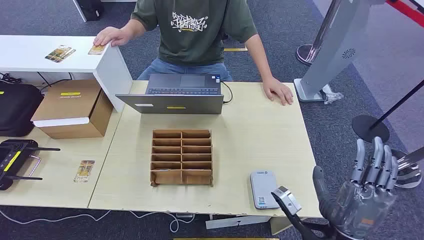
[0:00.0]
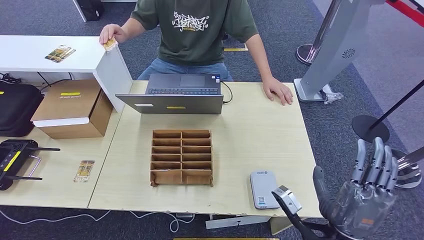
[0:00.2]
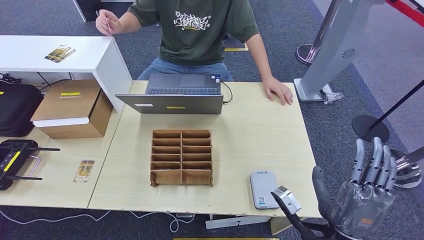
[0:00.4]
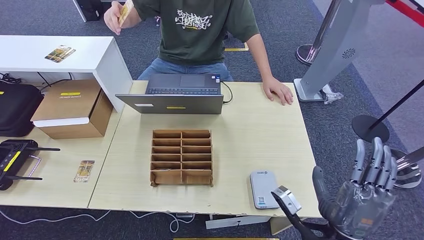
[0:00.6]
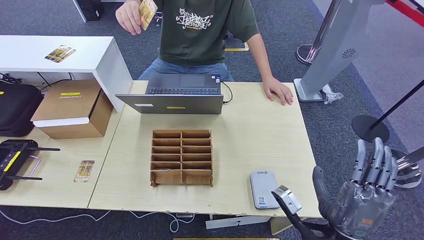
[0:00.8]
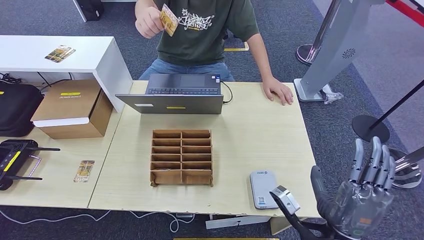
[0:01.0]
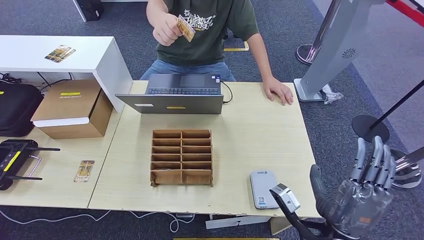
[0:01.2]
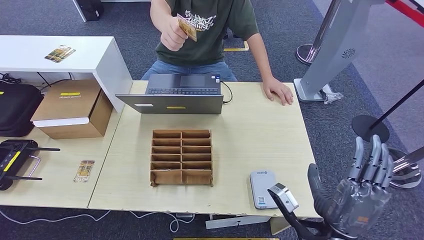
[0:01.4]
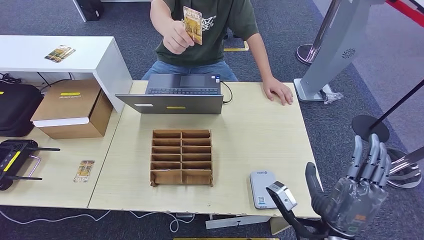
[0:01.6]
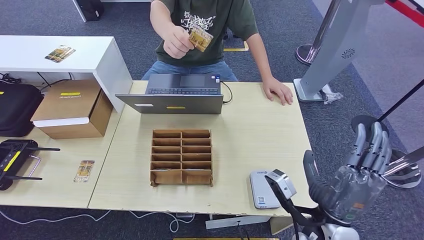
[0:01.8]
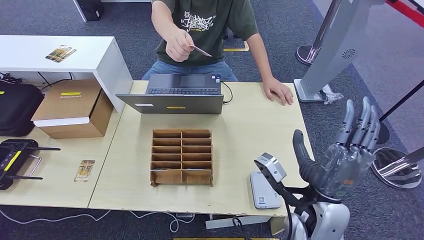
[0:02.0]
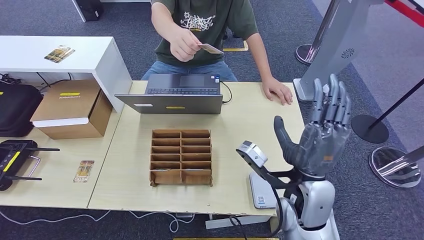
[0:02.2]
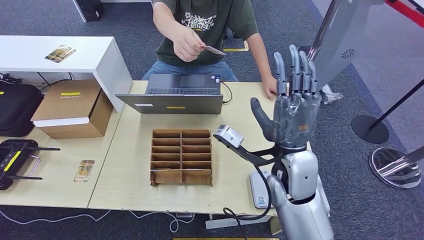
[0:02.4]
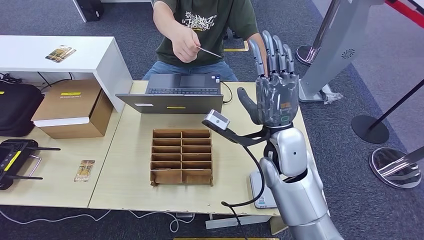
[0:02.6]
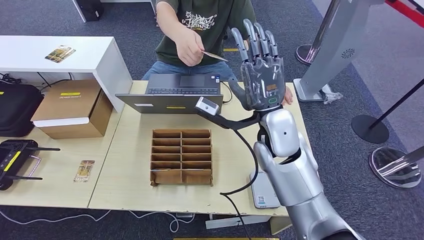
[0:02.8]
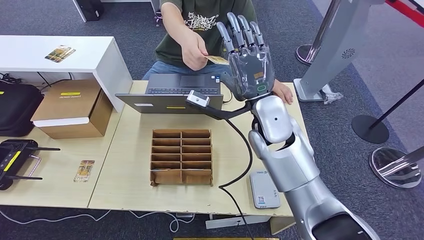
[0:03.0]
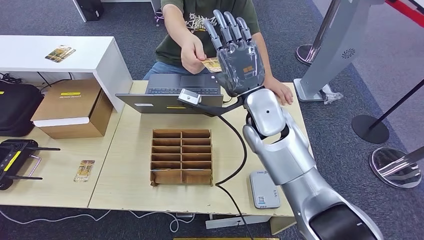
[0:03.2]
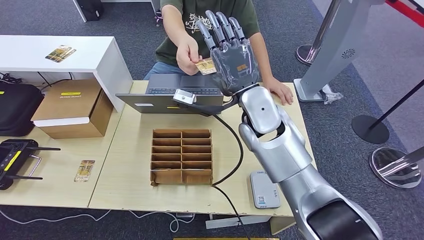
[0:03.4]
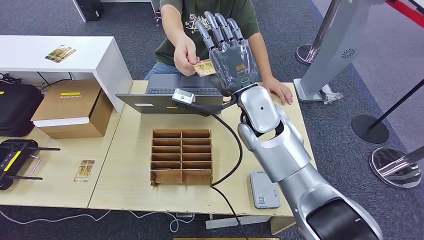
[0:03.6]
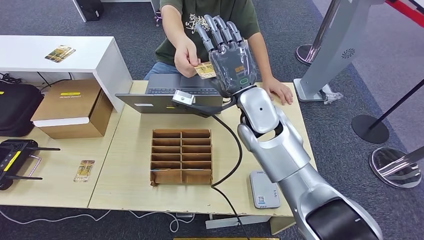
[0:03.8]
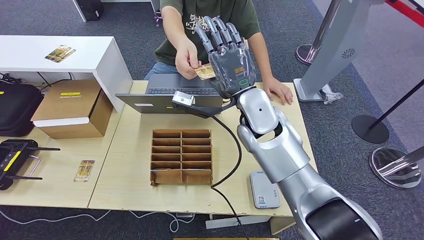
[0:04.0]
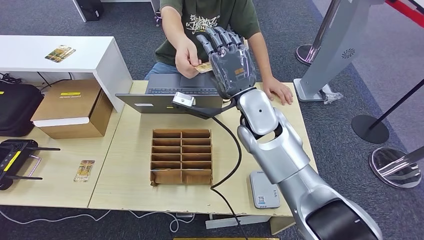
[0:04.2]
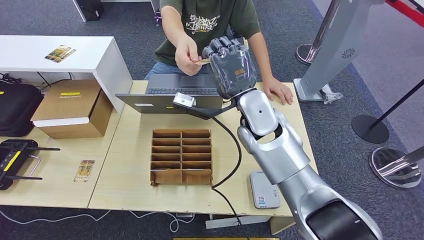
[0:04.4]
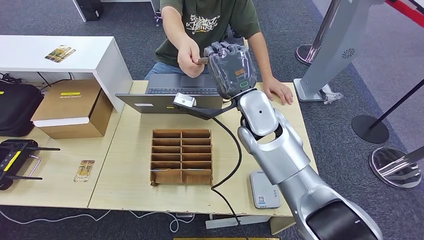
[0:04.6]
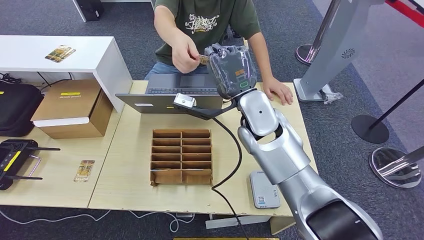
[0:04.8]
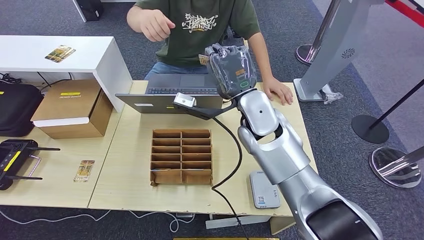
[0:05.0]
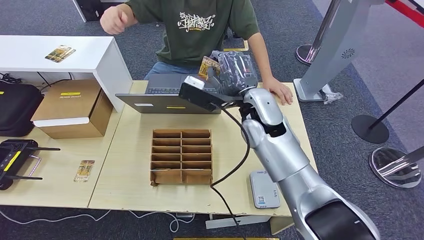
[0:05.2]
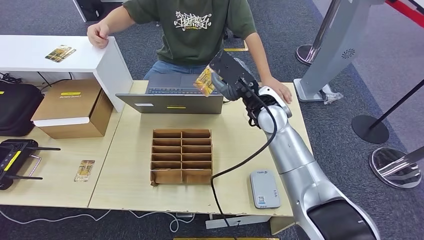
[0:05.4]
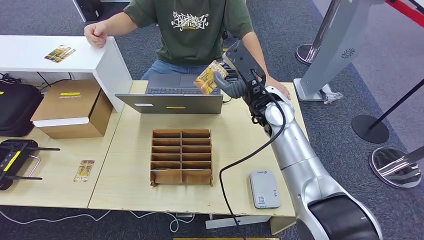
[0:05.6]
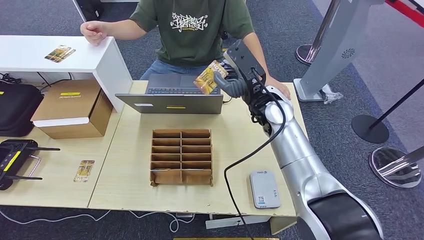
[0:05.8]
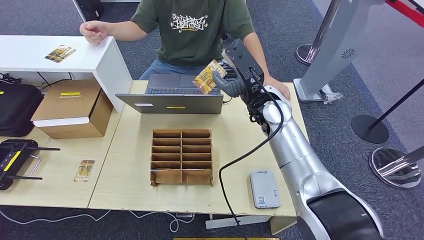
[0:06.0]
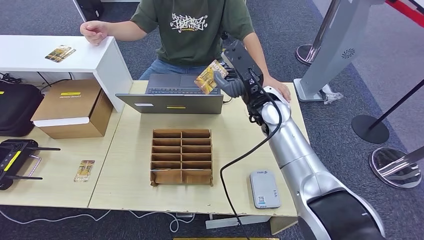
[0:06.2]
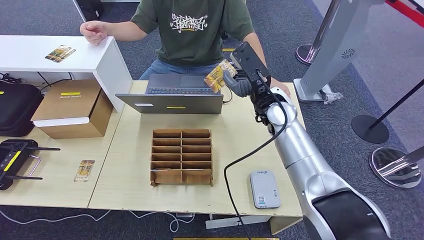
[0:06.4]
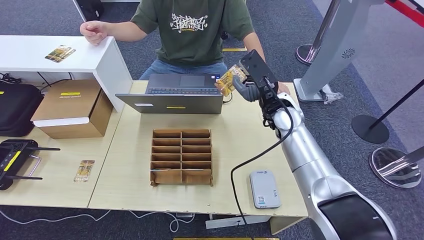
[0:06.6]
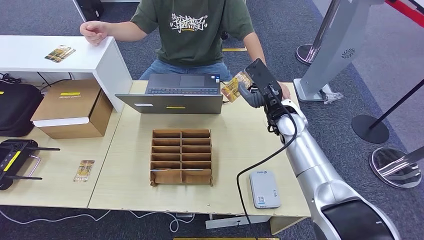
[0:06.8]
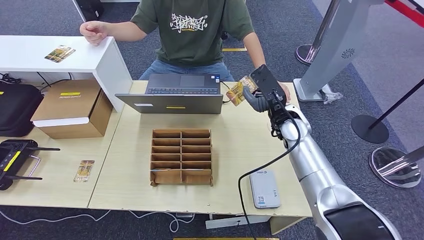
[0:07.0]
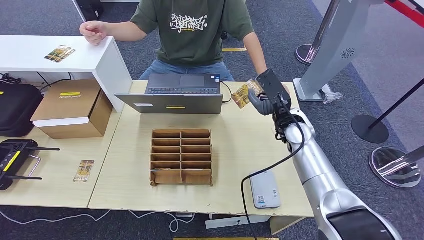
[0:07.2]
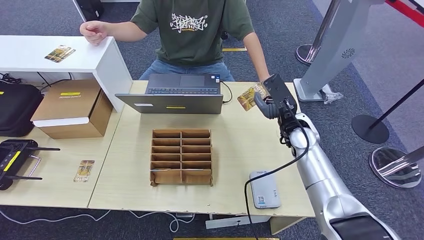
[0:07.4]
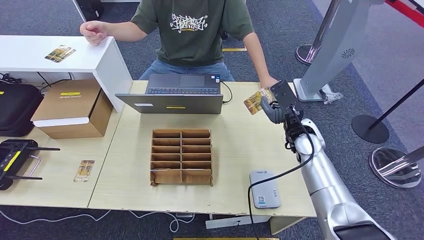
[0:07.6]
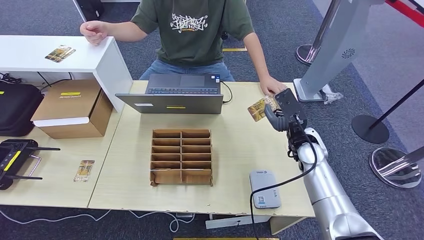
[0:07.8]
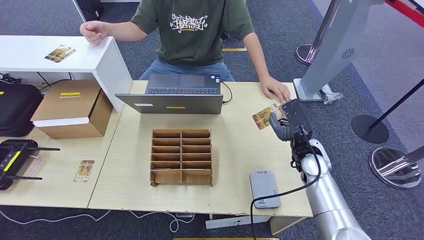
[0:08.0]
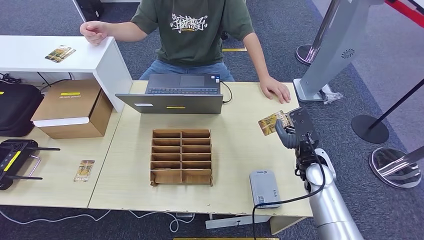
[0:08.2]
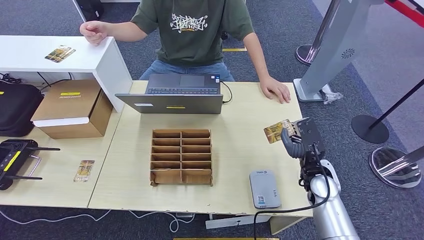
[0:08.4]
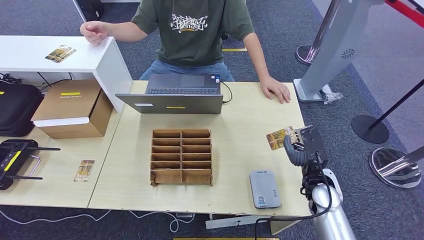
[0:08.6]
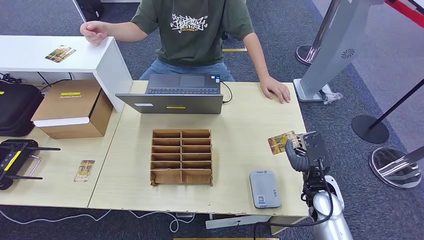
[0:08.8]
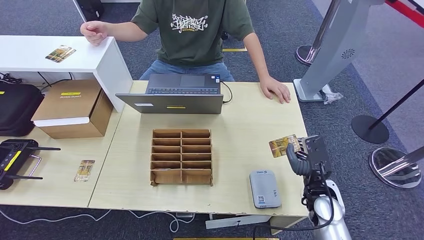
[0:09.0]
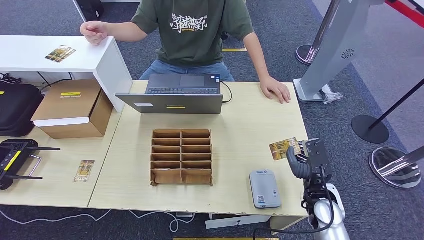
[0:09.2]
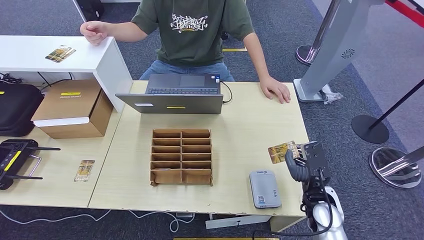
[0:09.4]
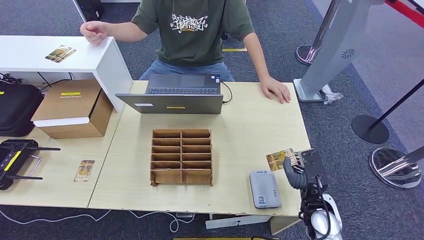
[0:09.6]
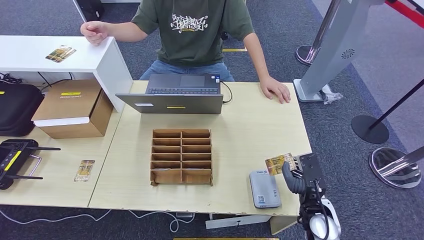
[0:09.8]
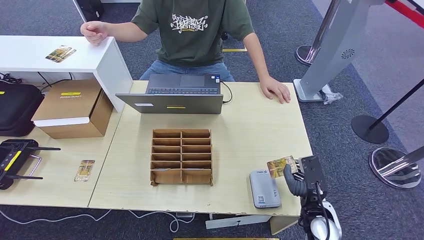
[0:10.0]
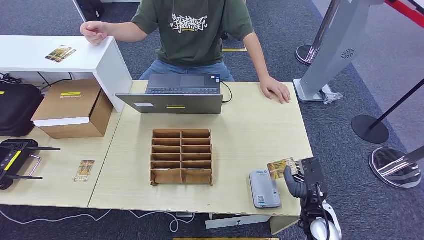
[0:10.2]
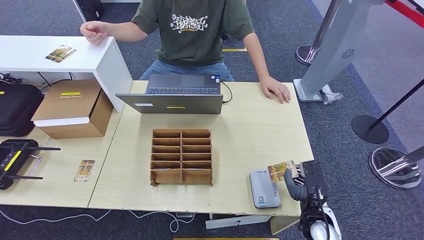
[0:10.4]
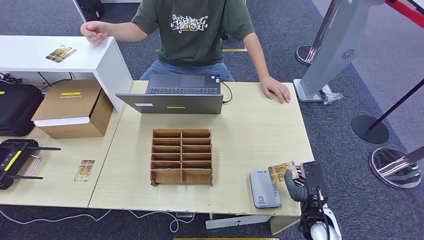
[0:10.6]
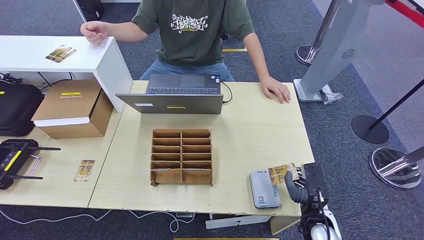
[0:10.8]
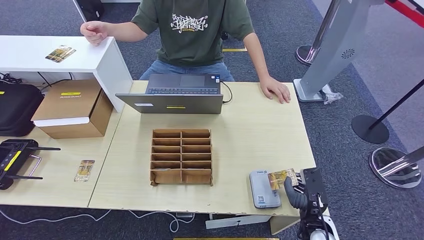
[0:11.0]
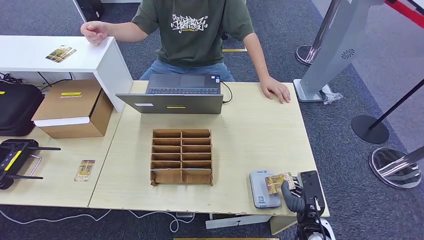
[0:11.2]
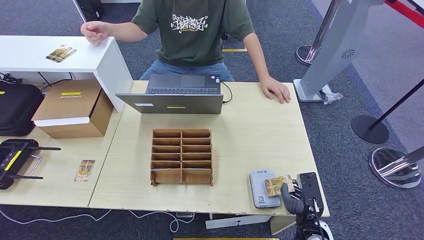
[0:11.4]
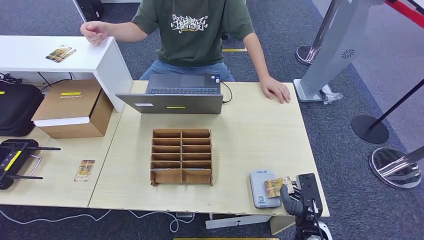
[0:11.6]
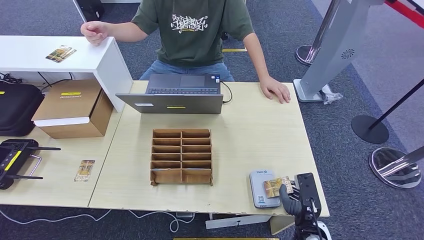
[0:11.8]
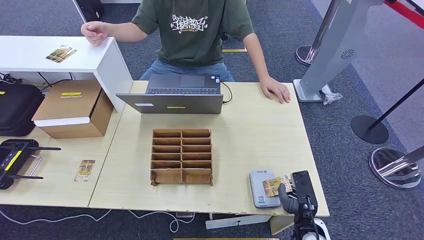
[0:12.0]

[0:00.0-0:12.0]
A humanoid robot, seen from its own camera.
Step, 0:00.0 to 0:05.4: Take the ID card from the person's hand.
0:01.6 to 0:03.0: The right hand travels forward, upward and to the left by roughly 30 cm.
0:03.0 to 0:04.4: The hands stay close to where they were, moving slightly.
0:04.4 to 0:06.0: The right hand changes place by roughly 5 cm.
0:06.0 to 0:07.6: The right hand shifts about 15 cm to the right and downward.
0:07.6 to 0:09.0: The right hand heads backward and downward, covering about 15 cm.
0:09.0 to 0:10.4: The right hand goes approximately 5 cm backward.
0:10.4 to 0:12.0: The hands make only small movements.

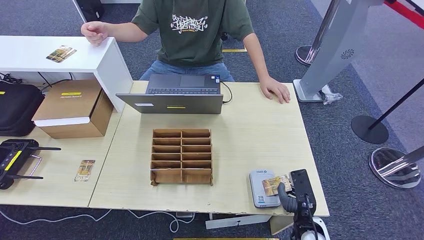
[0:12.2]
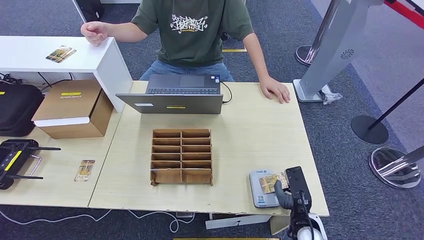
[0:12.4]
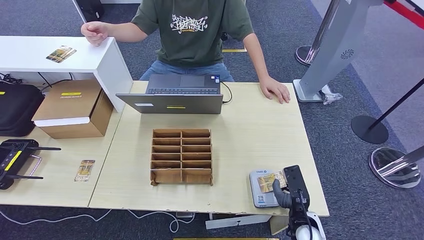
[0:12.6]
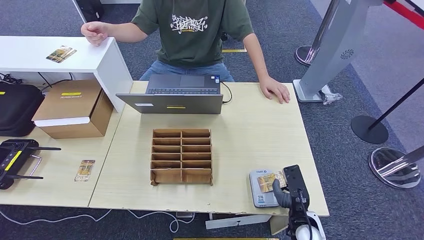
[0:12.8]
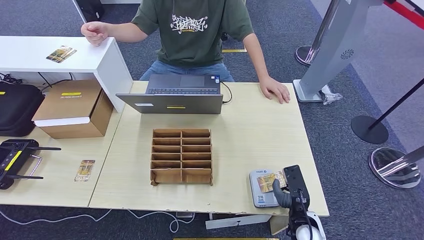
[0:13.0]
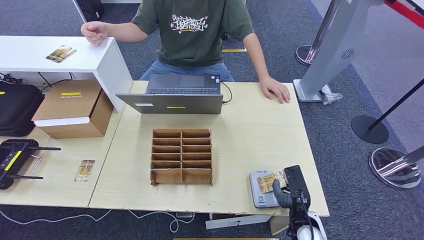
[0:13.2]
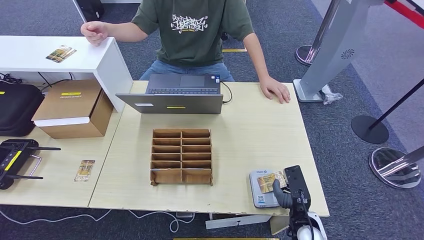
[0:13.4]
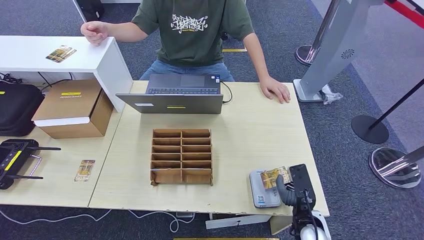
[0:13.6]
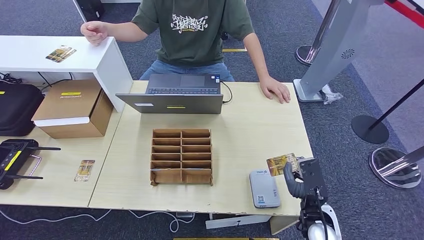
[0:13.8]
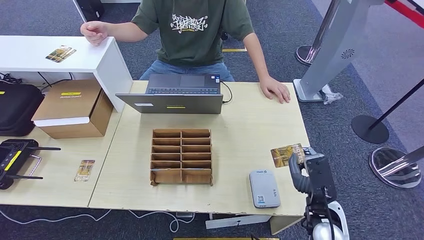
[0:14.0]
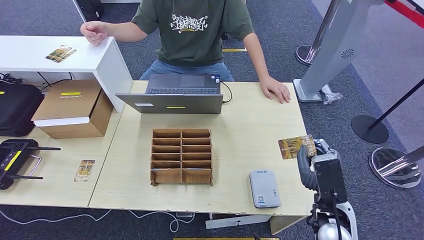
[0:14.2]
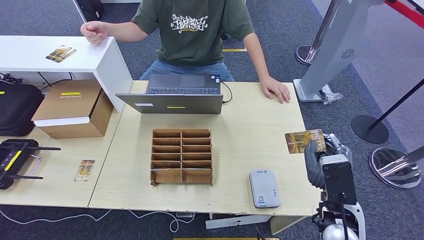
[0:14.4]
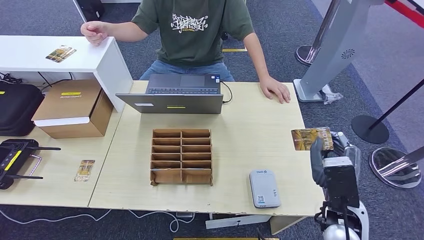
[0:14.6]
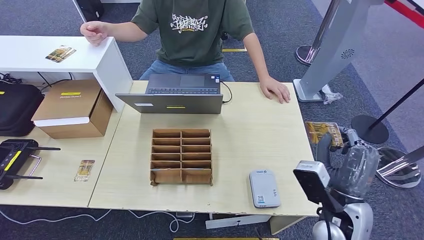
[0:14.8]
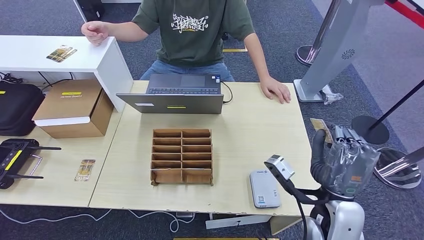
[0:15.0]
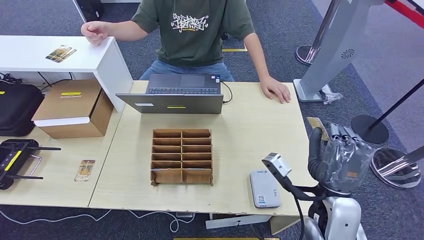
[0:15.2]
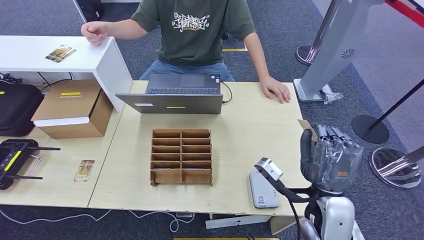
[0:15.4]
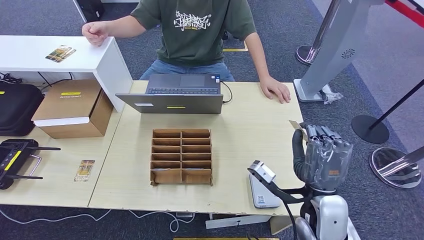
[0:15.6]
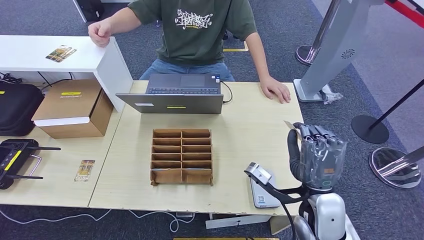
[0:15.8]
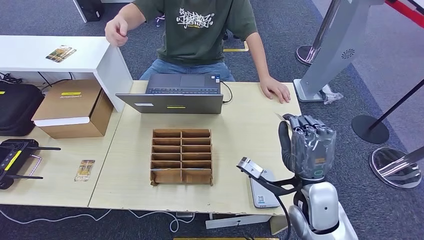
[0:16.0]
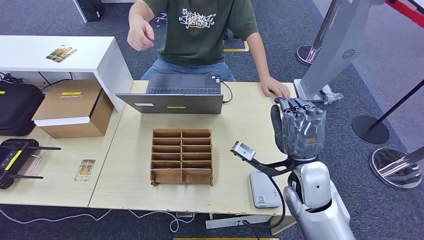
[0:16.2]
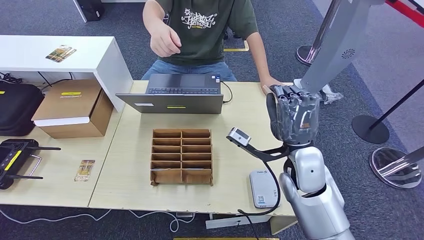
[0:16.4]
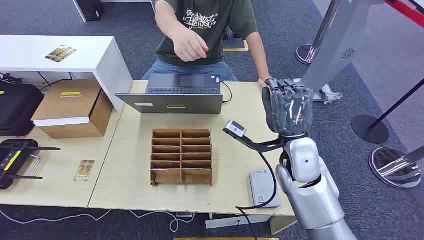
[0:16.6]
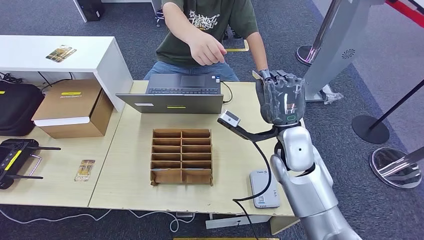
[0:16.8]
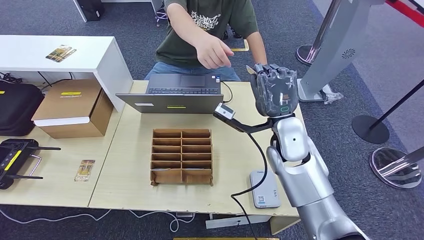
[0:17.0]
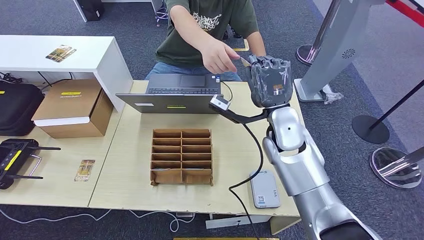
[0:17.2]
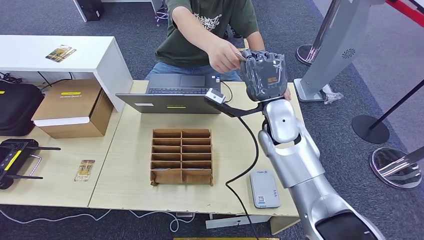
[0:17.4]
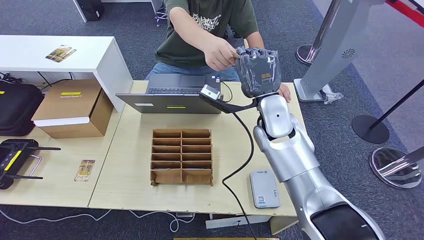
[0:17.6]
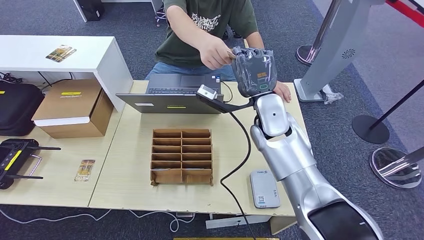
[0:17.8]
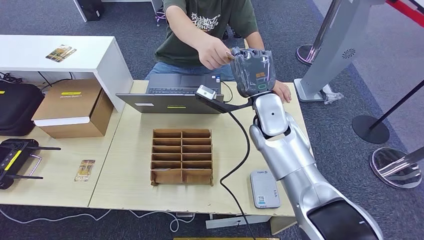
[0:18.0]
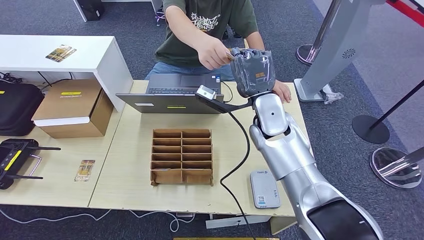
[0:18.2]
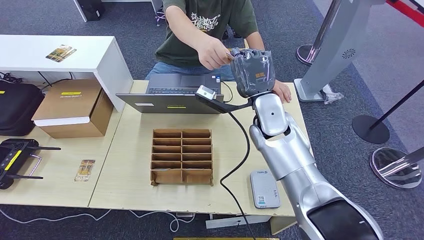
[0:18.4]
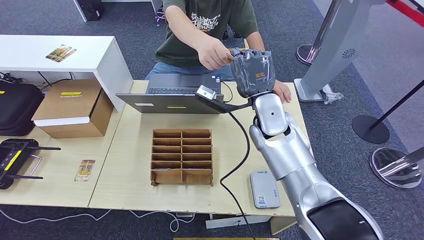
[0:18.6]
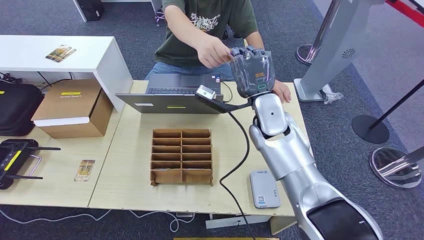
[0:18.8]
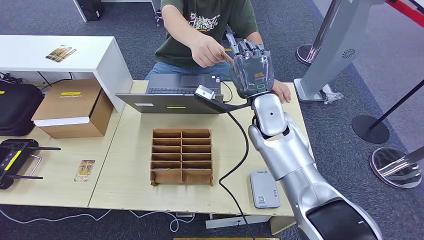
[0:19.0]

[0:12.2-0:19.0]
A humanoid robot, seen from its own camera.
0:12.2 to 0:13.6: The hands move only a little.
0:13.6 to 0:15.0: The right hand travels upward by approximately 15 cm.
0:15.0 to 0:16.2: The right hand heads forward, covering about 5 cm.
0:16.2 to 0:17.6: The right hand goes about 15 cm forward, to the left and upward.
0:17.6 to 0:19.0: The two hands keep their place.
